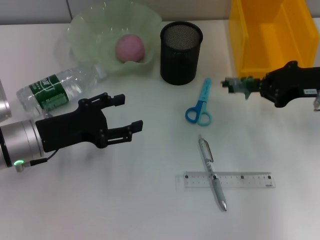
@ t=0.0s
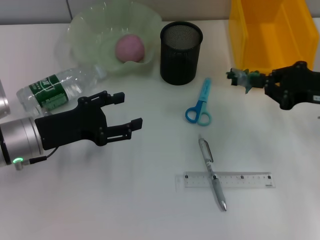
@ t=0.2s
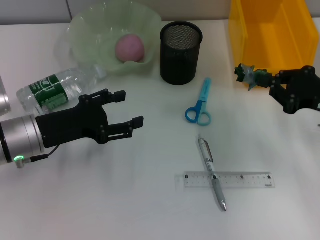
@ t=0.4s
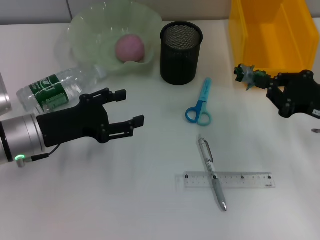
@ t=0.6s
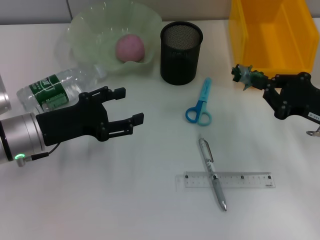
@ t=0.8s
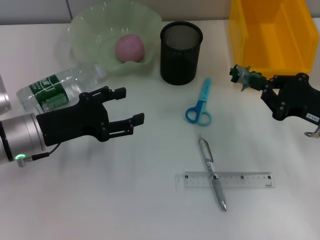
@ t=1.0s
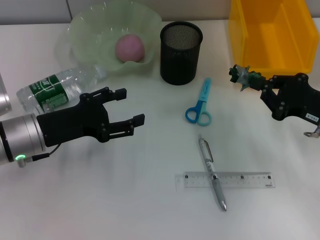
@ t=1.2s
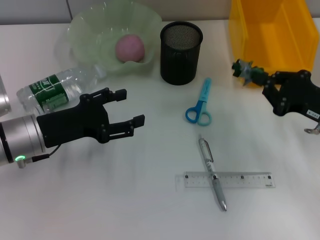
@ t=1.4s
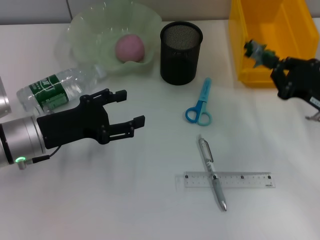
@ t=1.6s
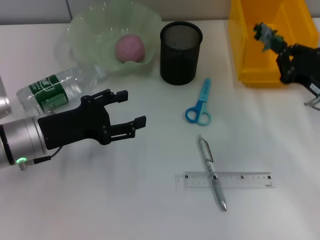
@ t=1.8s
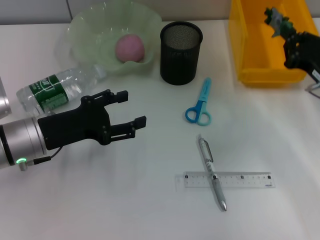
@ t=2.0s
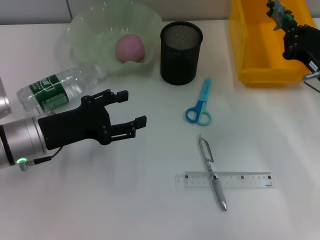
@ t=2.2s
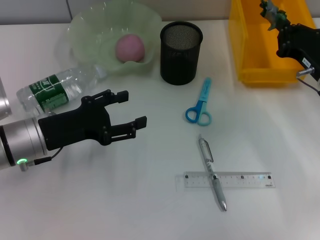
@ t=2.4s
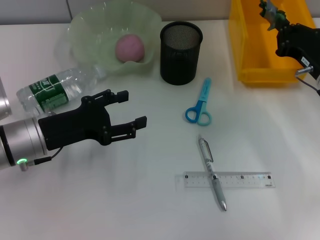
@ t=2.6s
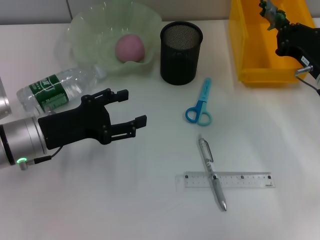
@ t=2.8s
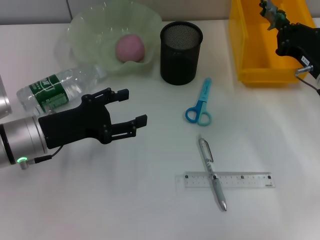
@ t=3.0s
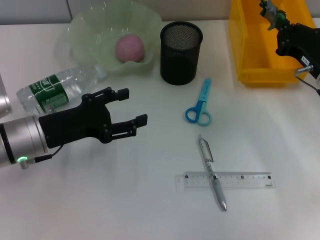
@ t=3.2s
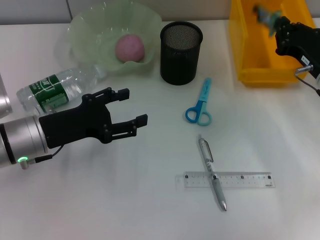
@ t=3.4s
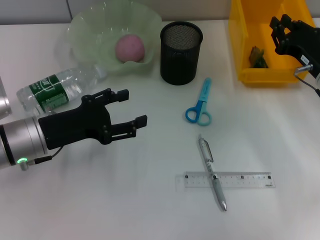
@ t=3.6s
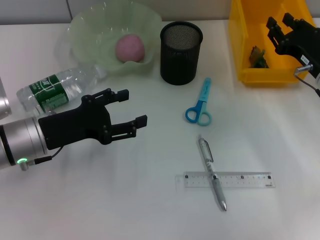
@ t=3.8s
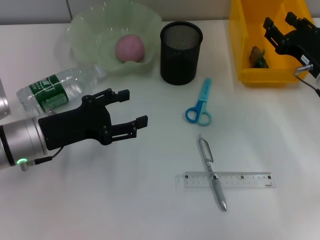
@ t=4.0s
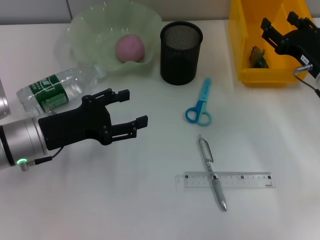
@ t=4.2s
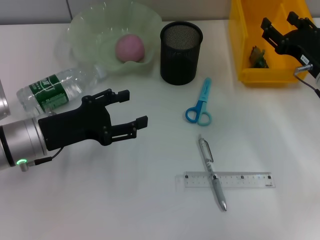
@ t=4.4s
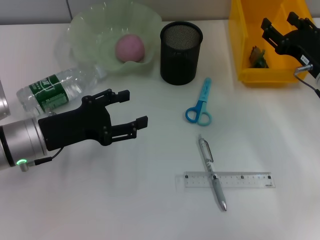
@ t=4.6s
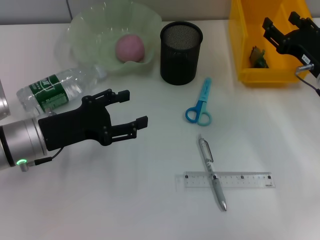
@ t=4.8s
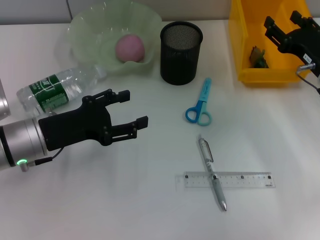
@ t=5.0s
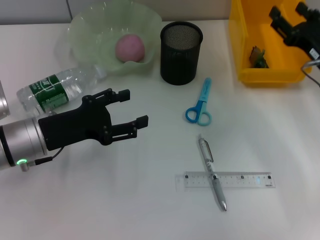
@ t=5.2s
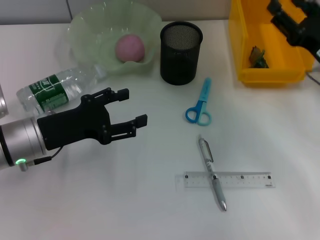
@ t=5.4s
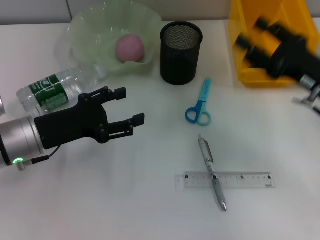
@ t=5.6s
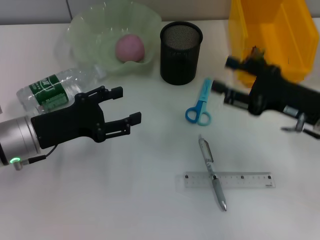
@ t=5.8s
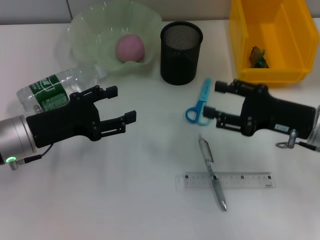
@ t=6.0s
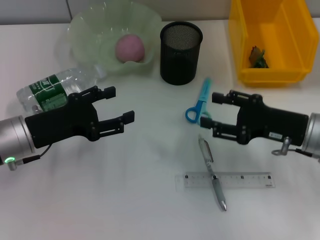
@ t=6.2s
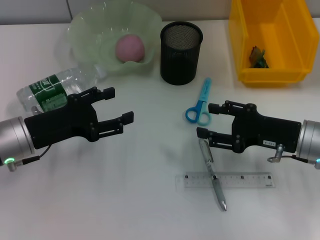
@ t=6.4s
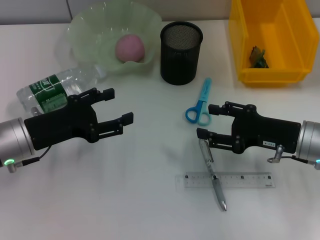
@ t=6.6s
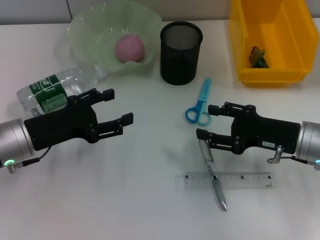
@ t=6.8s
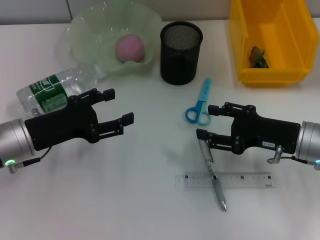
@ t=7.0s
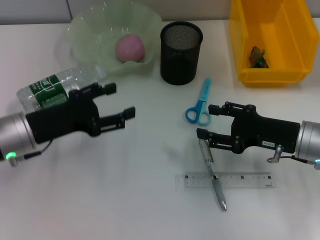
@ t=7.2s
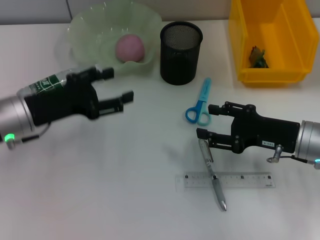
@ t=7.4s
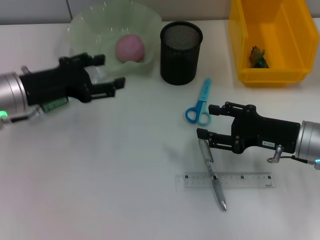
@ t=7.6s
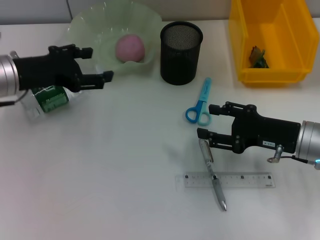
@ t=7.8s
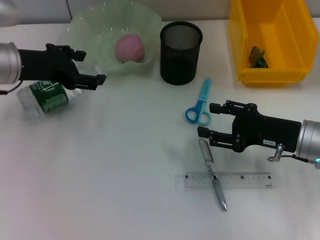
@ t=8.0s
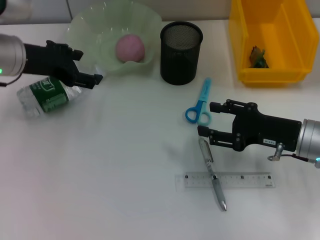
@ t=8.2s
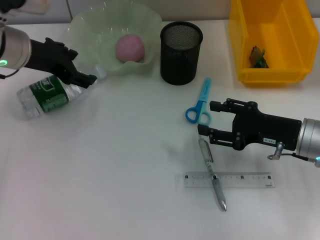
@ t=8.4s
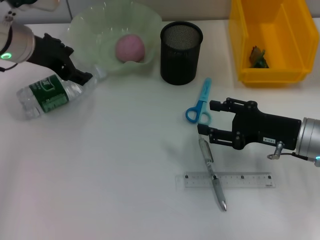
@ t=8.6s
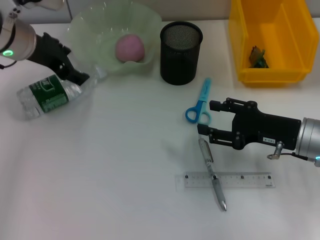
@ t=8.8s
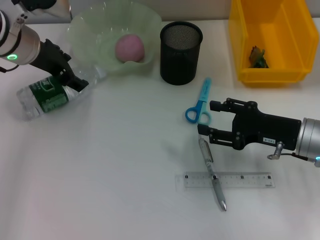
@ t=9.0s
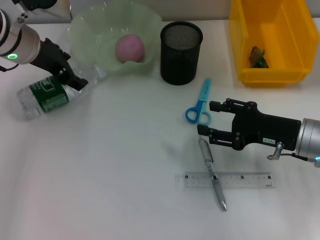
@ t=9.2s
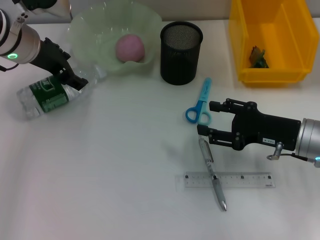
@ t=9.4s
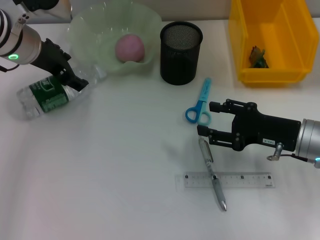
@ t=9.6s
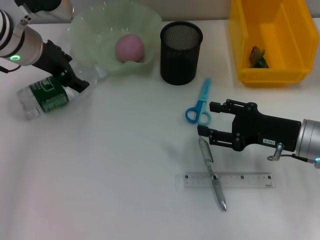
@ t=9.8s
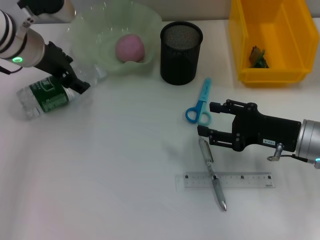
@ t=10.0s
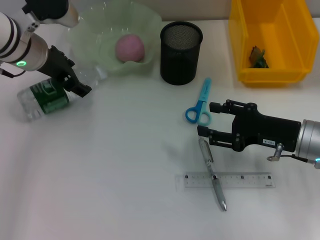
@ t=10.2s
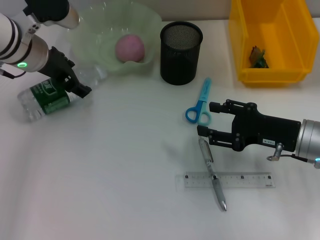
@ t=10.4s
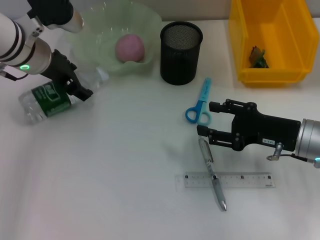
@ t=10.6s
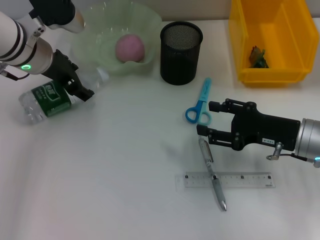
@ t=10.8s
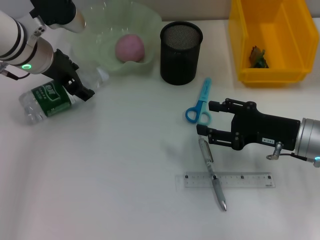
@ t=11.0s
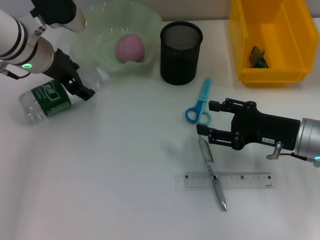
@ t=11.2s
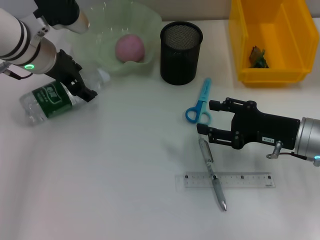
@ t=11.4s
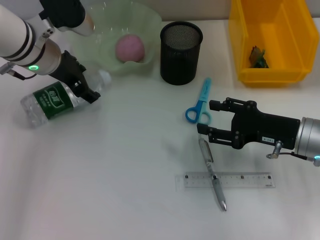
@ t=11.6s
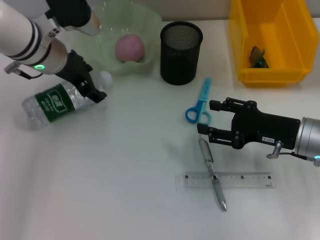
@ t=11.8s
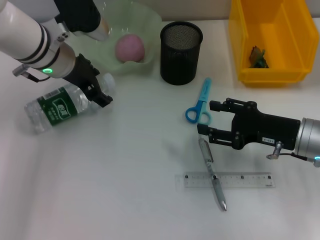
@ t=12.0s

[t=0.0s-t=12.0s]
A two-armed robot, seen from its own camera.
Step, t=0.0s to t=3.8s: Place the plastic into the trash can with the right hand.
t=0.0s to t=1.6s: The right gripper travels downward and backward by approximately 10 cm.
t=1.6s to t=3.0s: The right gripper is displaced forward by approximately 5 cm.
t=3.0s to t=4.4s: The right gripper opens its fingers.
t=4.4s to t=6.0s: The right gripper shifts roughly 5 cm backward.
t=6.0s to t=7.6s: The left gripper shifts by some 5 cm.
t=7.6s to t=9.0s: The left gripper goes roughly 10 cm forward.
t=9.0s to t=12.0s: The grippers make only small movements.

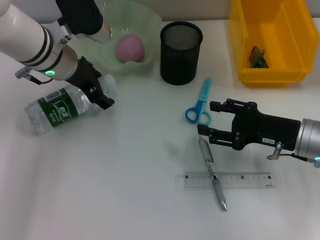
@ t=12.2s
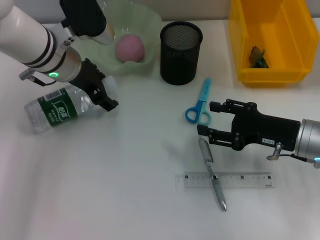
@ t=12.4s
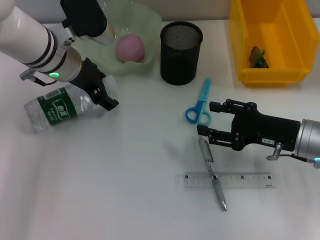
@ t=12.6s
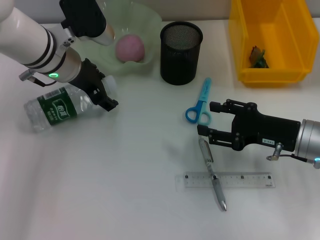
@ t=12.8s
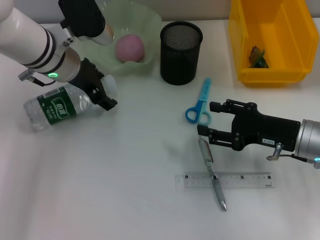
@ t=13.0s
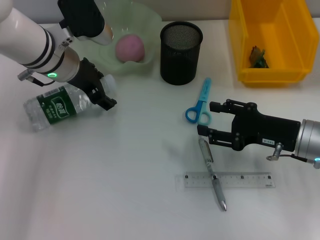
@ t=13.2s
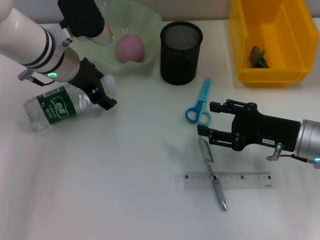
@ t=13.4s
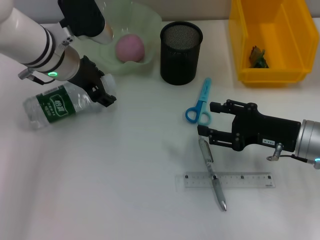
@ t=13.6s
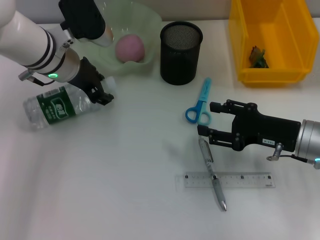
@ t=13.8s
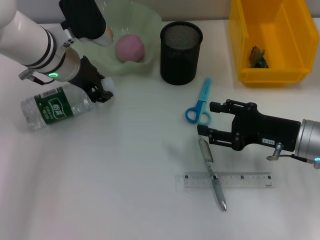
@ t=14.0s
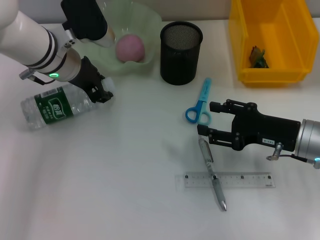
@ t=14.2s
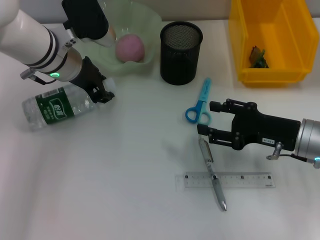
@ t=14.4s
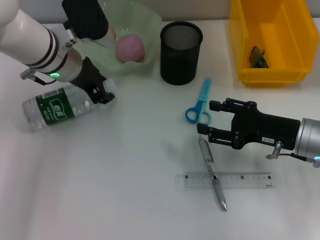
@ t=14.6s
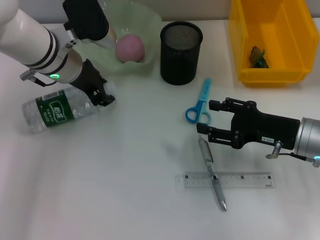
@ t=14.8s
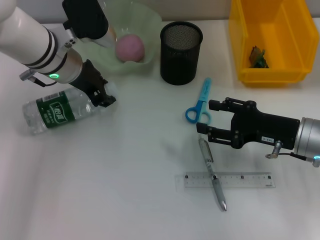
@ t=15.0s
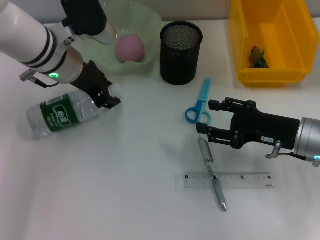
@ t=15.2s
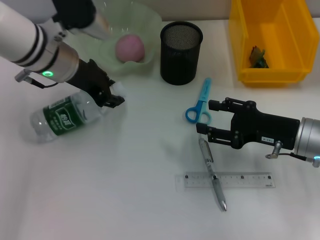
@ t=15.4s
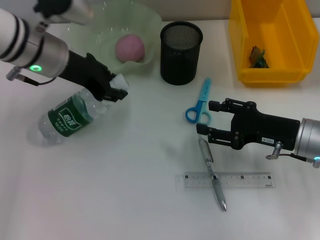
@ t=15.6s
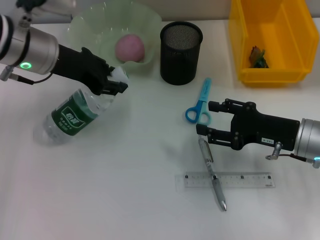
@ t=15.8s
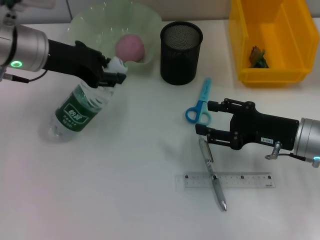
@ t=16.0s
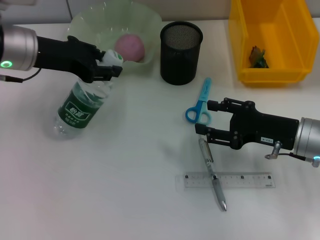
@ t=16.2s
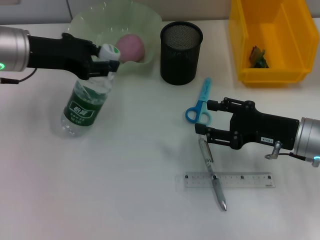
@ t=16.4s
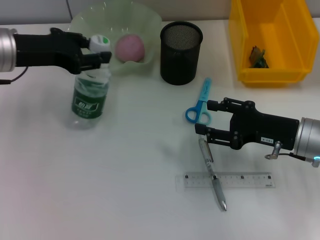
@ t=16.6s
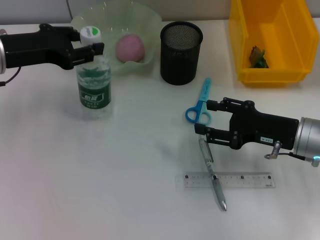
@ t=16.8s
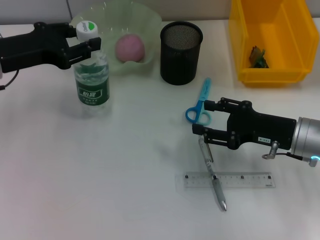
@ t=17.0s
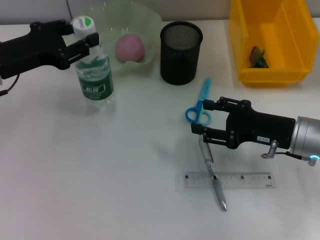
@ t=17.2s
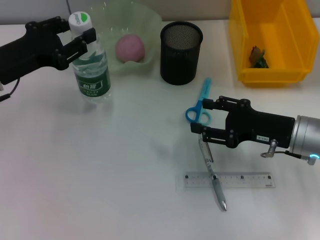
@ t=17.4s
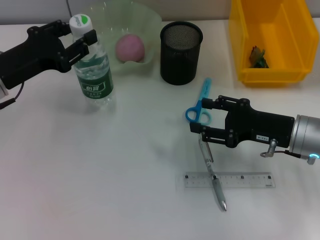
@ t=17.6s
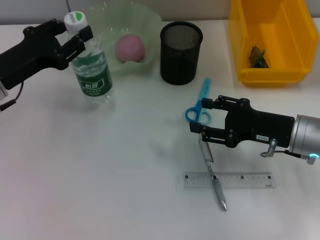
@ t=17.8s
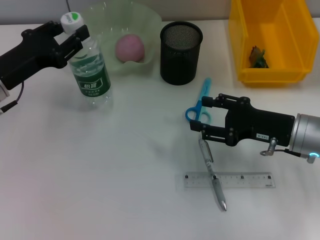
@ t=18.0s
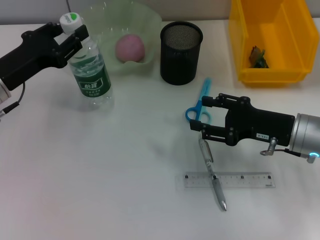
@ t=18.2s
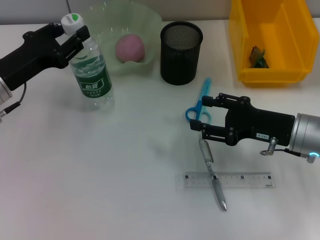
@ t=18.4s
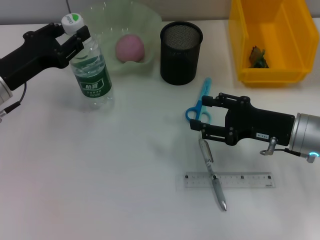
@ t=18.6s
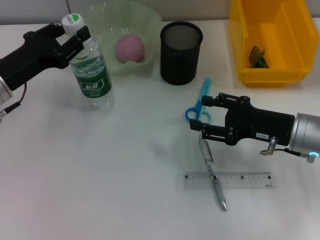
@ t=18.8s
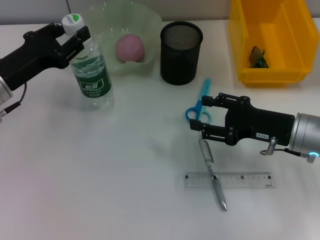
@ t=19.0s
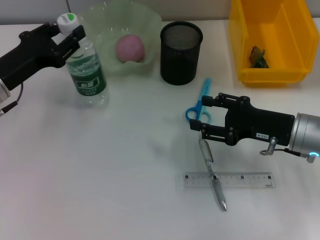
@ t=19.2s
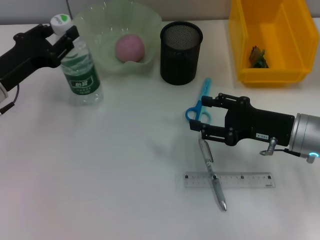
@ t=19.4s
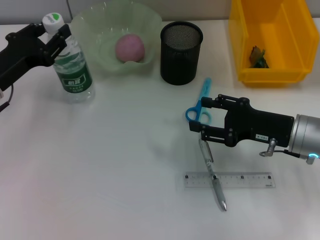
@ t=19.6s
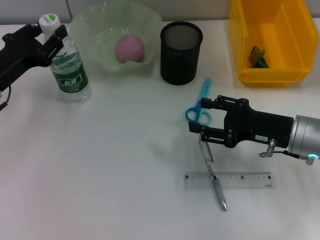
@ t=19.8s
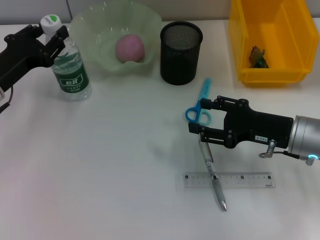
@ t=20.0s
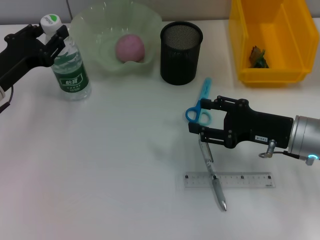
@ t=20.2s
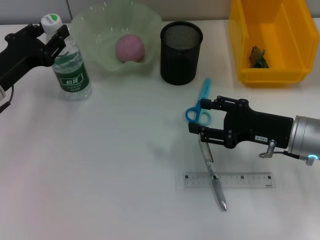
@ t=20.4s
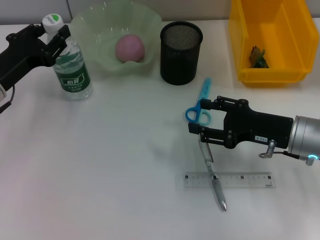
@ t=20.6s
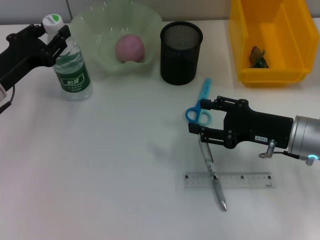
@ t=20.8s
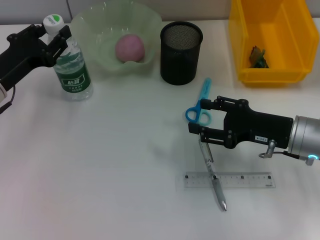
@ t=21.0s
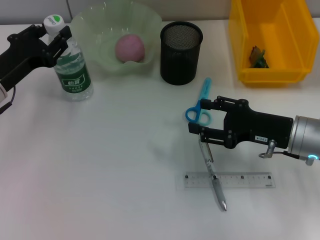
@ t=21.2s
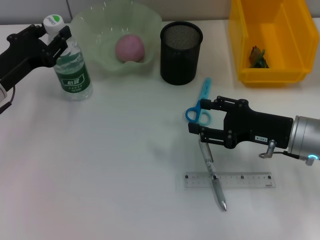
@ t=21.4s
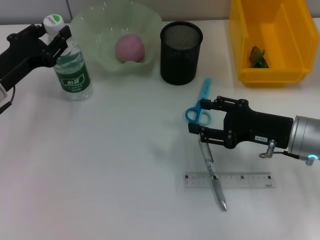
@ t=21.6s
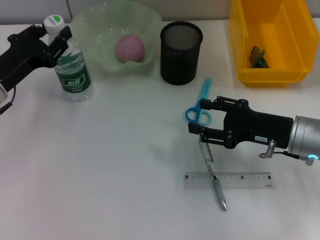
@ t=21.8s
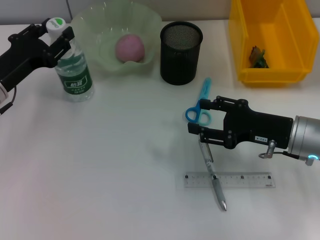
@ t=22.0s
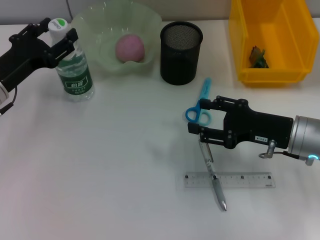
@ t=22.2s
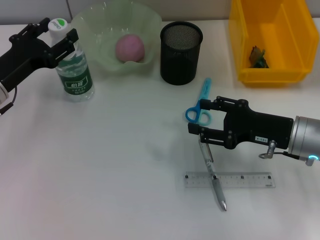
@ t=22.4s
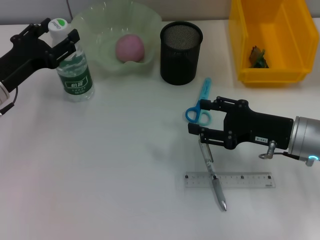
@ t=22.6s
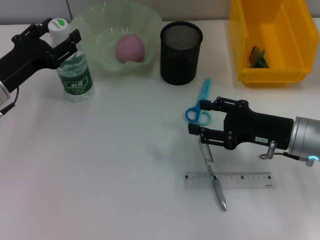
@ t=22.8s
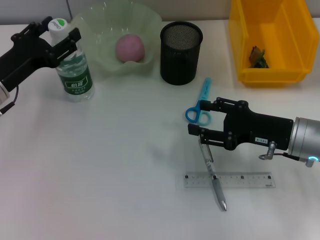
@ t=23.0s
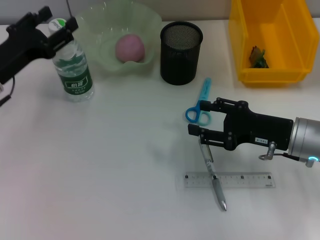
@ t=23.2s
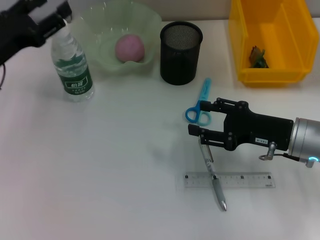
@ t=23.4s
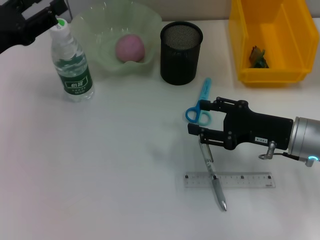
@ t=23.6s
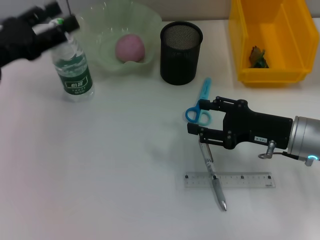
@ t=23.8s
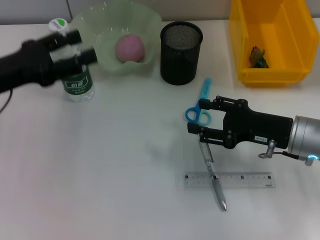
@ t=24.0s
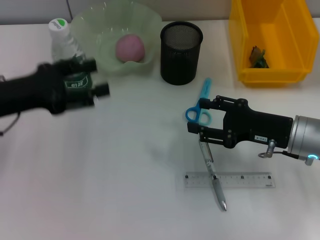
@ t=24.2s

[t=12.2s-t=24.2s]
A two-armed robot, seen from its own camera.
Step, t=12.2s to t=14.2s: Grab the water bottle with the left hand.
Step, t=14.4s to t=22.2s: Place the water bottle on the table with the left hand.
t=12.2s to t=13.8s: Neither gripper changes place.
t=13.8s to t=15.2s: The left gripper closes up.
t=15.2s to t=16.6s: The left gripper goes about 10 cm to the left.
t=16.6s to t=18.2s: The left gripper shifts about 5 cm downward.
t=18.2s to t=19.8s: The grippers make only small movements.
t=19.8s to t=22.6s: The two grippers keep their place.
t=22.6s to t=24.2s: The left gripper ends up some 5 cm from where it was.
